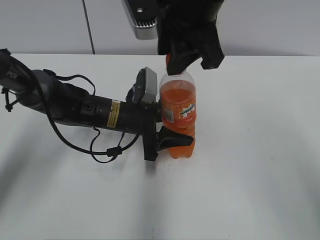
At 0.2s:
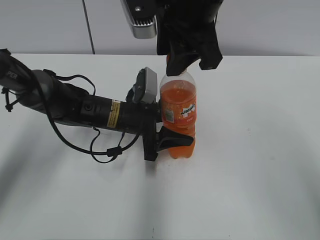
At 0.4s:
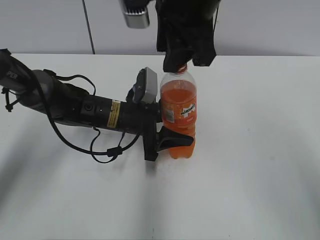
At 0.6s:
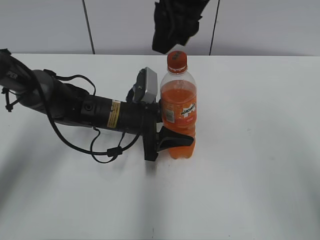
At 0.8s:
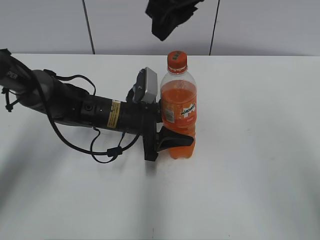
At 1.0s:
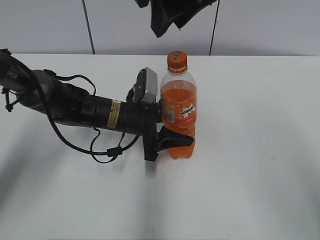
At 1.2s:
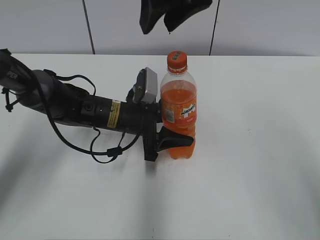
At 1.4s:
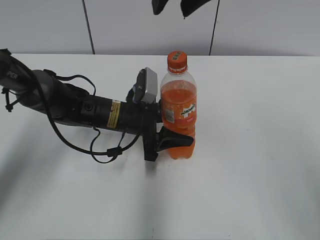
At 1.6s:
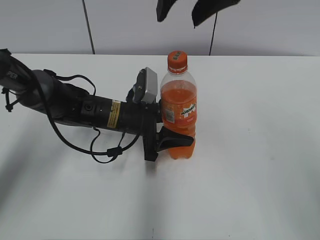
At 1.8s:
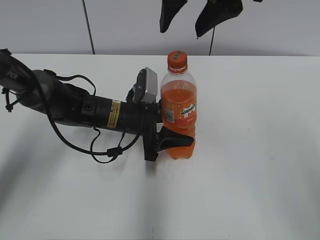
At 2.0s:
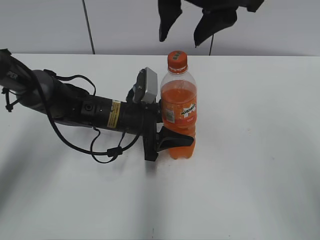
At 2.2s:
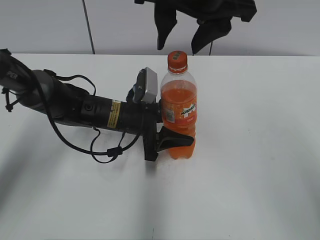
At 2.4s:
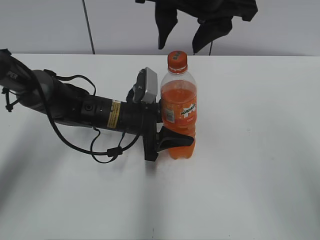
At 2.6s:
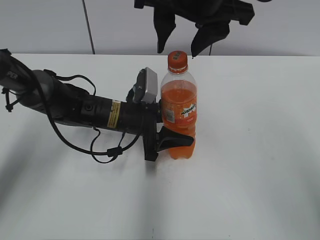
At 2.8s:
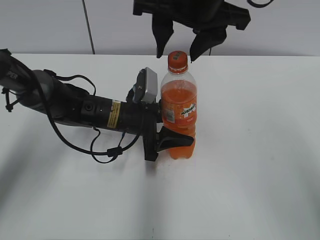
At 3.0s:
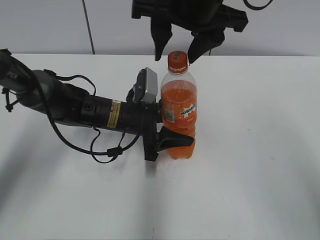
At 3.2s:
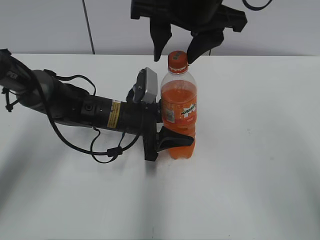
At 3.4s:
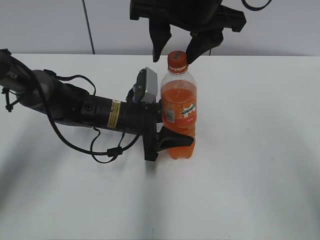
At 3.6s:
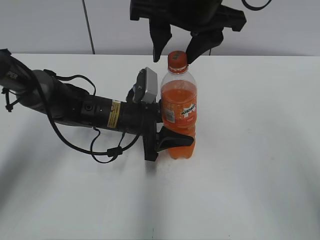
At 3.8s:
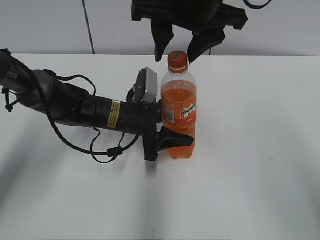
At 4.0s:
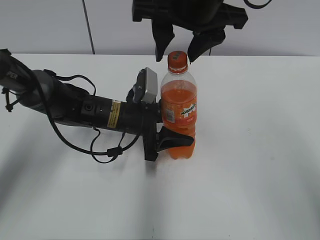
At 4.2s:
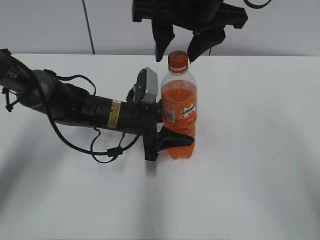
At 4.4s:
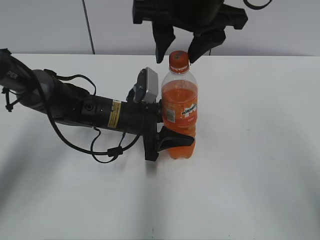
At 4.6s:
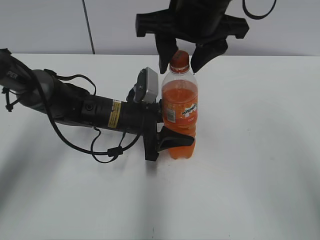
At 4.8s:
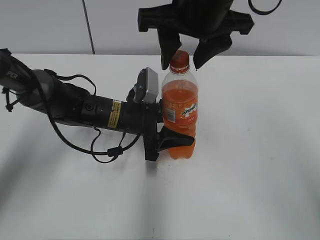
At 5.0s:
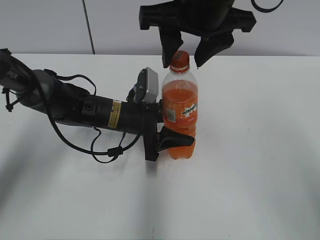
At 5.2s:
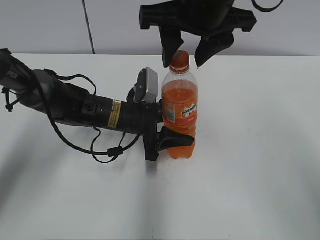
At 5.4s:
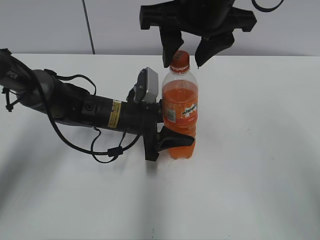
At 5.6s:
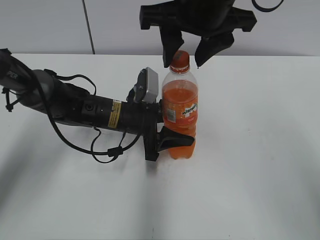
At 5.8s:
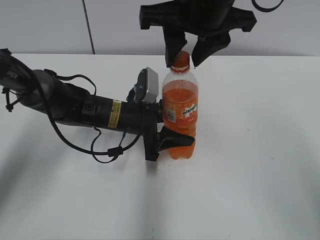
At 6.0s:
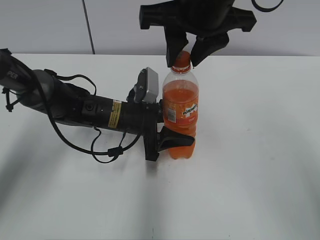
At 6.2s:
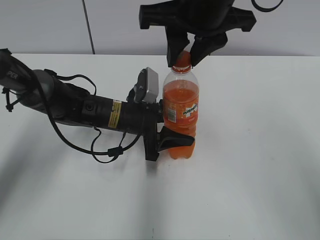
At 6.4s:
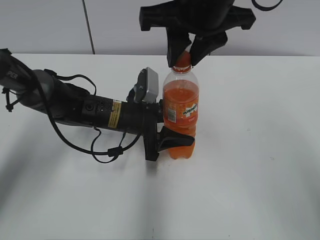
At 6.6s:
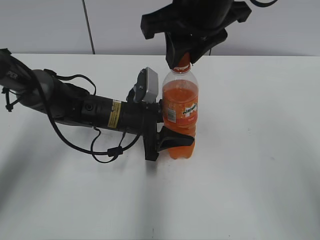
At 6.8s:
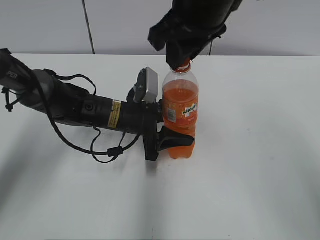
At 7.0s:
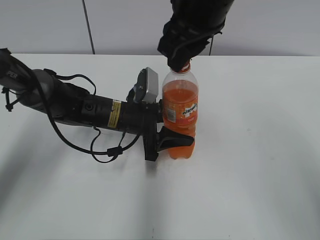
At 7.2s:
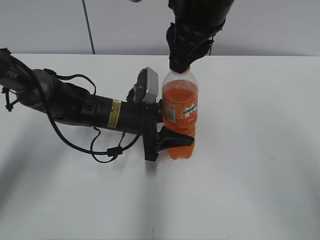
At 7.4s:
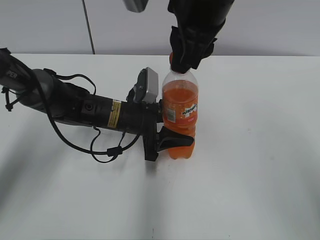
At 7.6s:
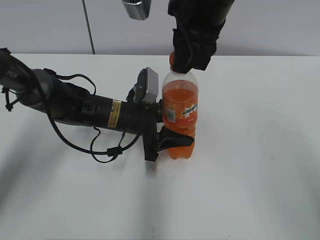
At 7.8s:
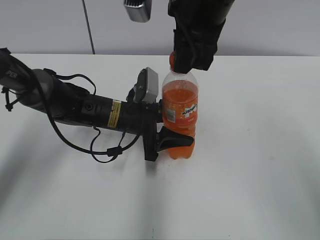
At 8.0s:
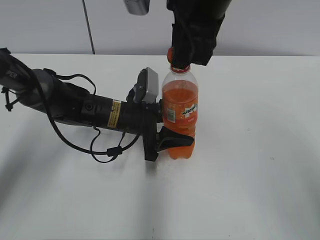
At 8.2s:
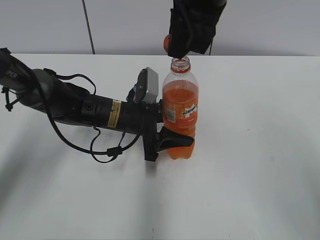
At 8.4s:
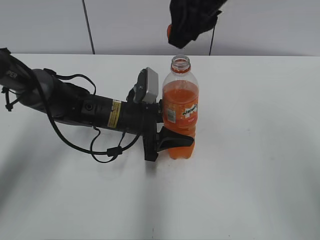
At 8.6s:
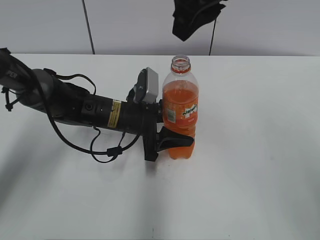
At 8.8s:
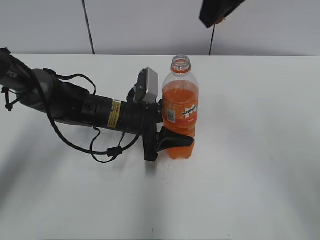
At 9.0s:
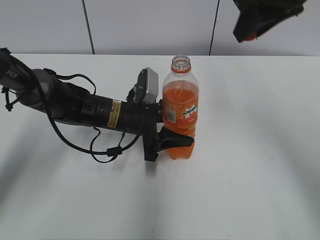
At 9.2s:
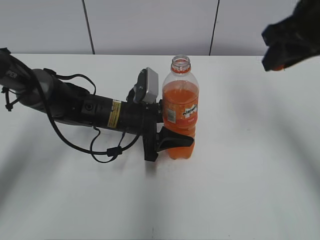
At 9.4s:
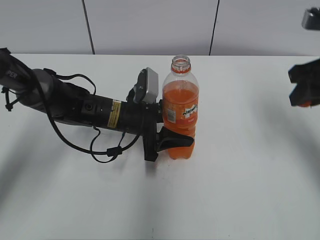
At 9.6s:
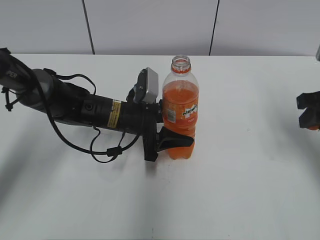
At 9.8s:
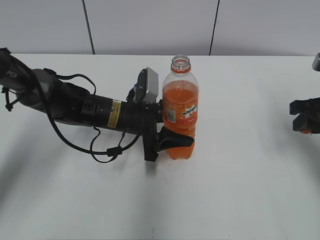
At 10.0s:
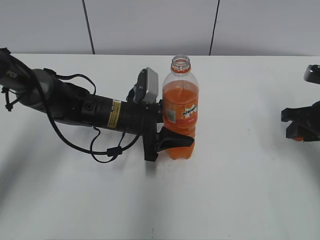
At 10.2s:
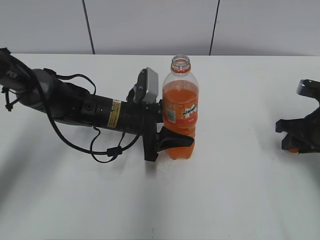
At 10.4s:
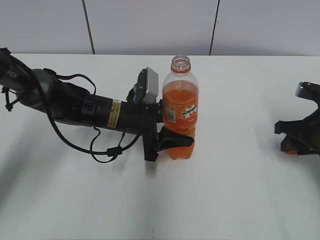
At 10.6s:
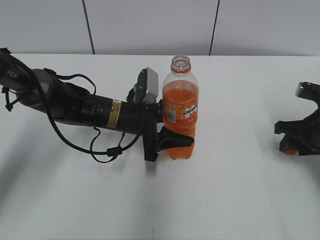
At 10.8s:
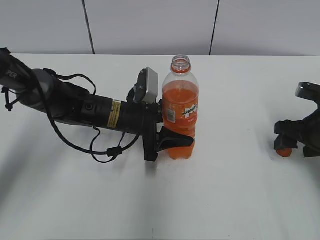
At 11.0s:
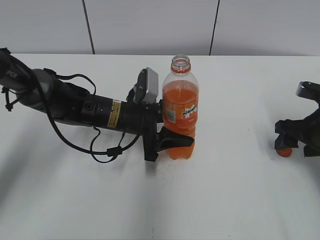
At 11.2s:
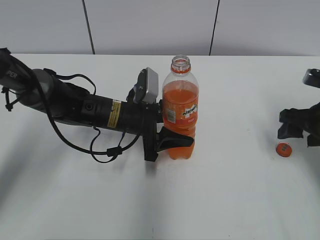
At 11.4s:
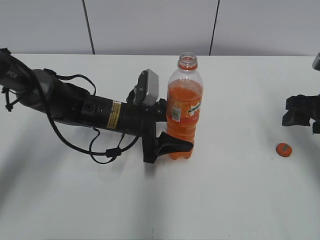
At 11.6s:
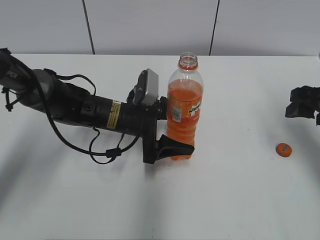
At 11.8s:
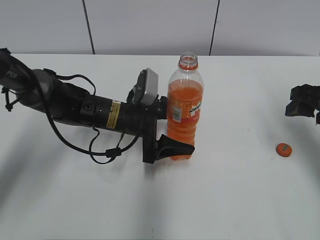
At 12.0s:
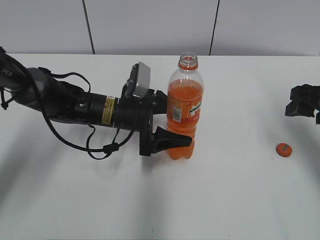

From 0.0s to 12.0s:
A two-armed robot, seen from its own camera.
Step, from 8.2s to 10.8s: Place the bottle cap on the right.
From 0.0s to 1.6s: The right gripper is displaced upward by approximately 5 cm, and opens up.
From 1.6s to 3.0s: The right gripper is displaced downward by some 5 cm.
From 3.0s to 4.4s: The grippers stay close to where they were, moving slightly.
From 4.4s to 6.0s: The right gripper closes up.
From 7.6s to 9.0s: The right gripper heads to the right, covering approximately 10 cm.
From 9.0s to 10.4s: The right gripper is displaced downward and to the right by approximately 25 cm.
From 10.4s to 12.0s: The left gripper opens. The right gripper shifts some 10 cm upward, and opens.

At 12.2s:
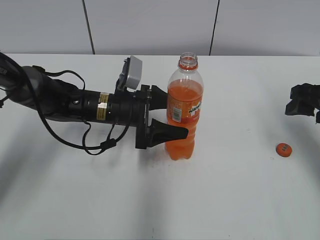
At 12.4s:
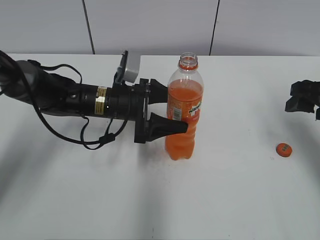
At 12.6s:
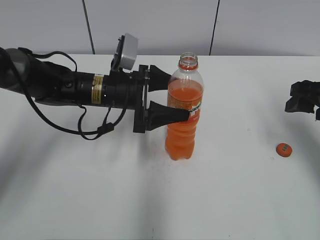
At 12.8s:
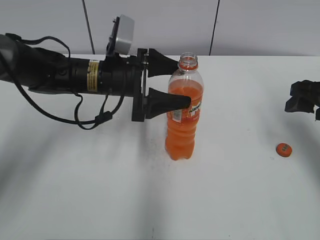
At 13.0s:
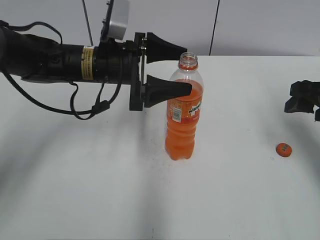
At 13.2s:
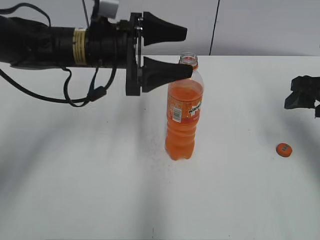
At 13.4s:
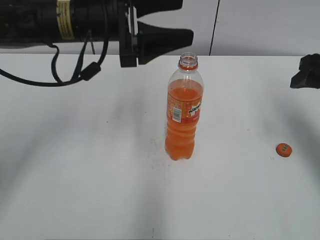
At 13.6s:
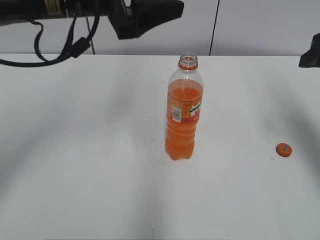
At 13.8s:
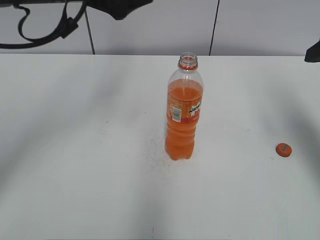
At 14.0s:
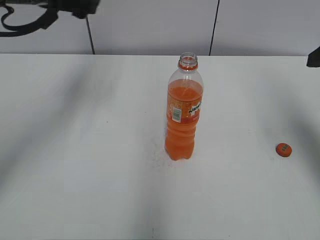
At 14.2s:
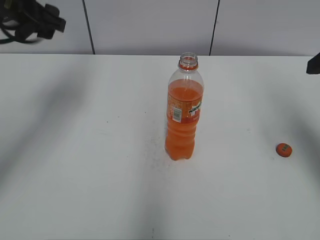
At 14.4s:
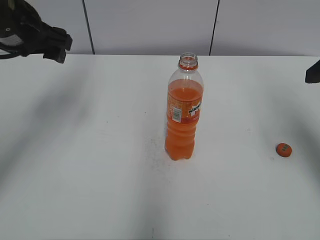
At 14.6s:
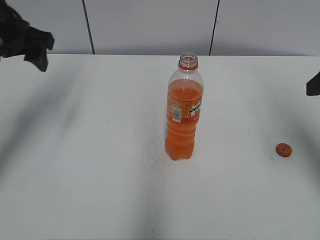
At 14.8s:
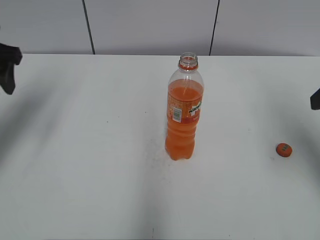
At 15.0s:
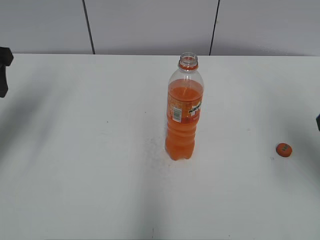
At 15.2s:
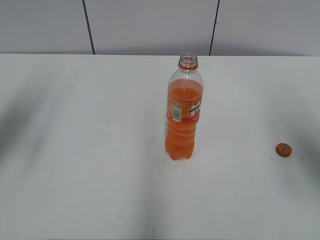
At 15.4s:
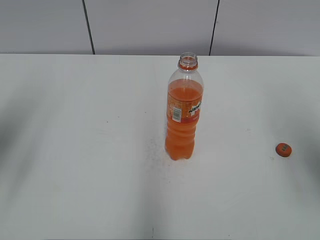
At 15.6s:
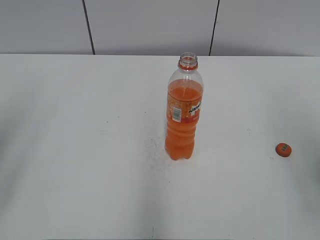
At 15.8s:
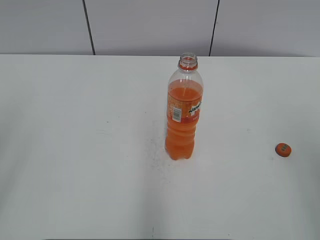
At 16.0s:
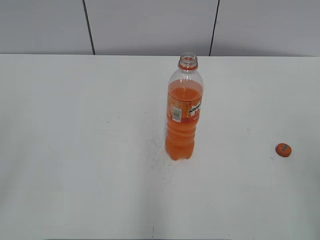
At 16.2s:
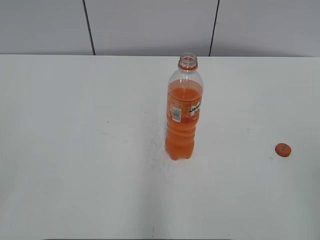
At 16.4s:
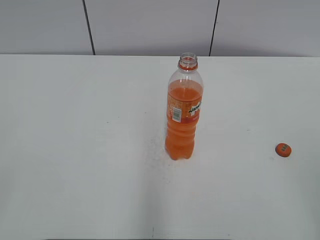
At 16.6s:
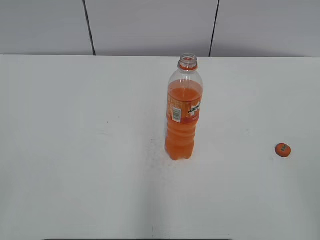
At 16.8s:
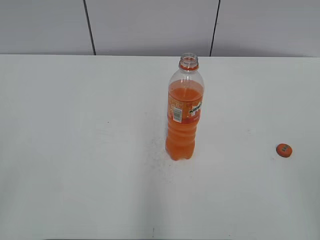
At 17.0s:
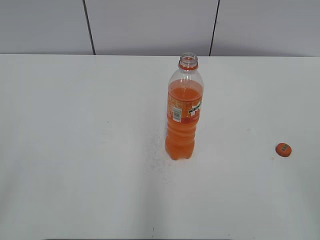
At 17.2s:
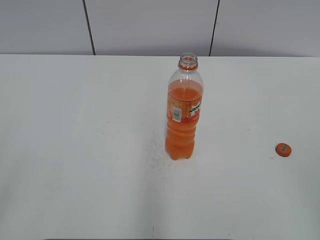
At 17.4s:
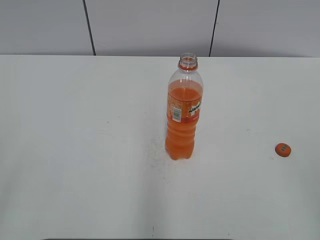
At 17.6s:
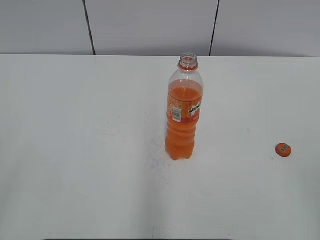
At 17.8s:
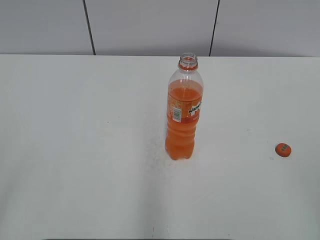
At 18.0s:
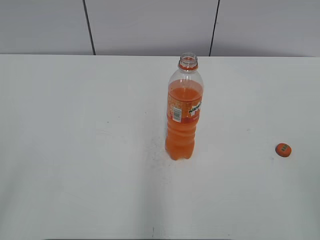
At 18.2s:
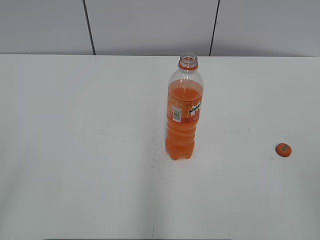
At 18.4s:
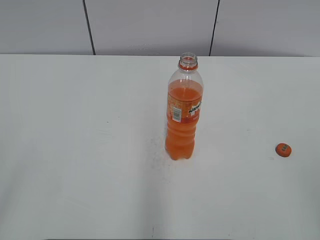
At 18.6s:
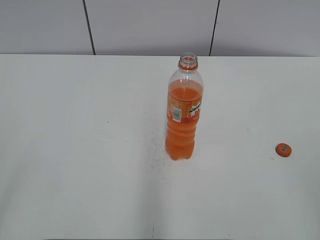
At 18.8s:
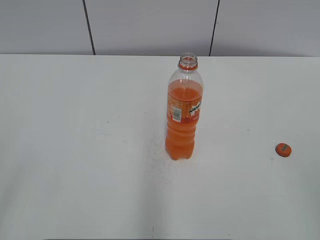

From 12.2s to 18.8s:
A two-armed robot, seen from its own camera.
From 12.2s to 13.8s: The left gripper heads upward, covering some 20 cm. Meanwhile the right gripper heads upward, covering approximately 10 cm.
From 13.8s to 15.4s: The right gripper travels backward by roughly 10 cm. Meanwhile the left gripper shifts roughly 20 cm to the left and backward.
From 15.4s to 17.2s: The grippers both shift backward by some 20 cm.
From 17.2s to 18.8s: Both grippers stay put.

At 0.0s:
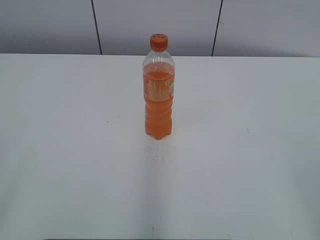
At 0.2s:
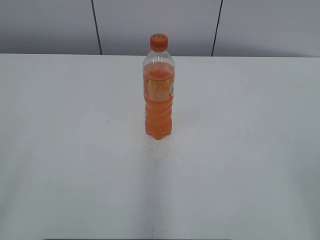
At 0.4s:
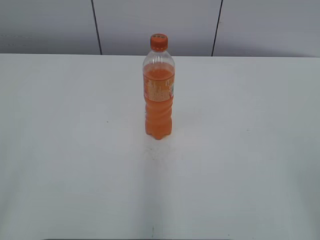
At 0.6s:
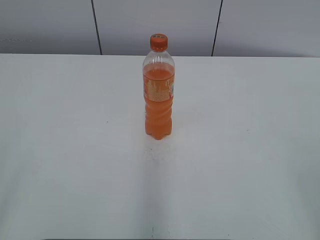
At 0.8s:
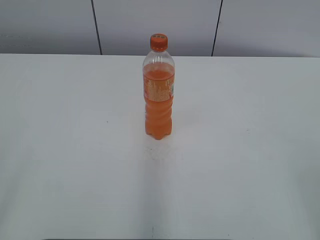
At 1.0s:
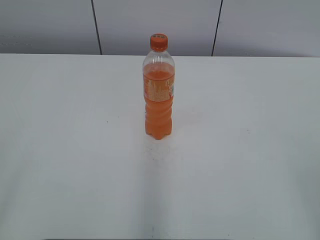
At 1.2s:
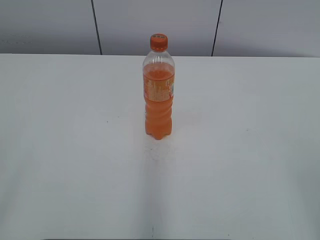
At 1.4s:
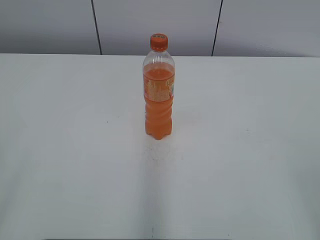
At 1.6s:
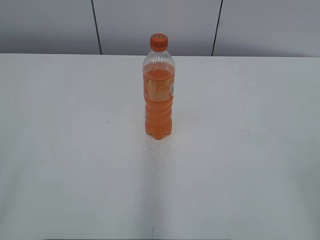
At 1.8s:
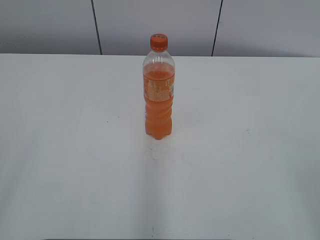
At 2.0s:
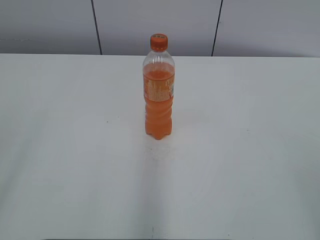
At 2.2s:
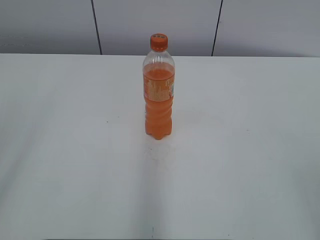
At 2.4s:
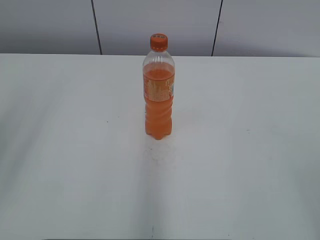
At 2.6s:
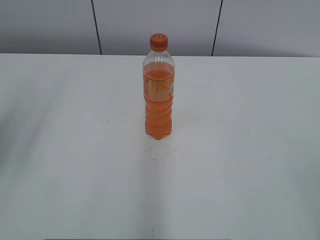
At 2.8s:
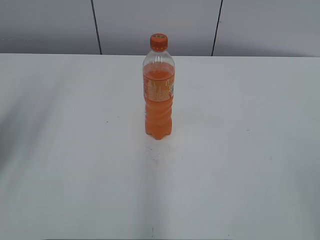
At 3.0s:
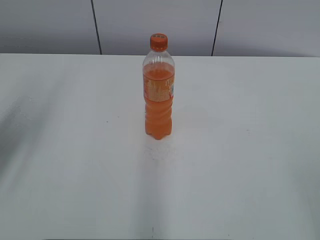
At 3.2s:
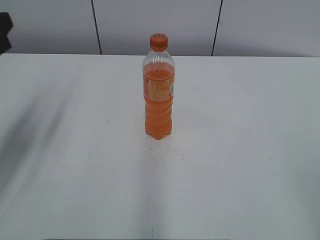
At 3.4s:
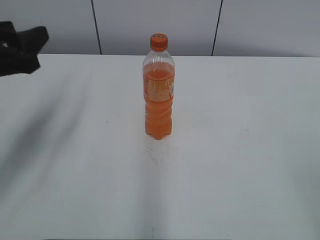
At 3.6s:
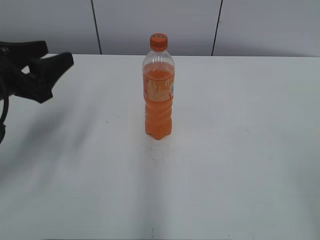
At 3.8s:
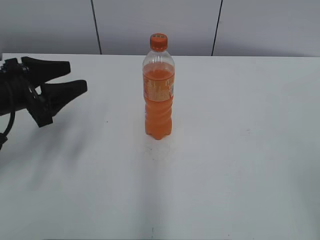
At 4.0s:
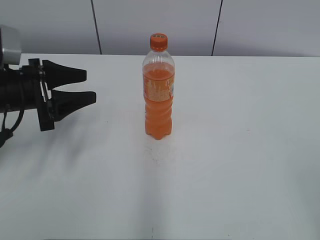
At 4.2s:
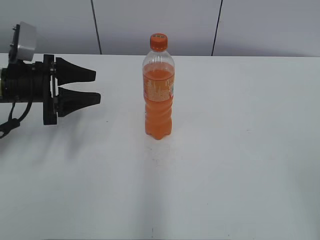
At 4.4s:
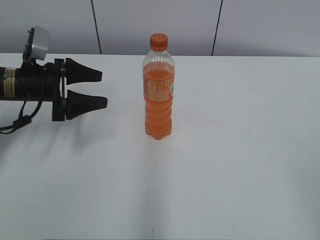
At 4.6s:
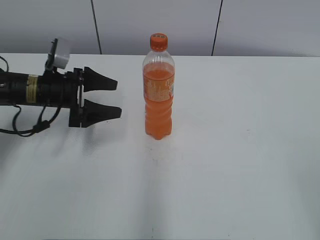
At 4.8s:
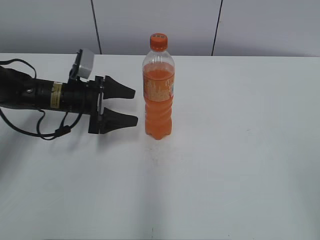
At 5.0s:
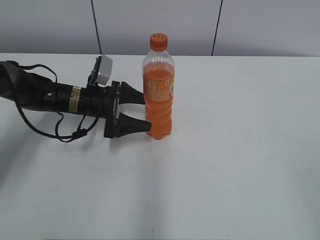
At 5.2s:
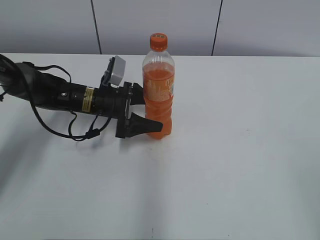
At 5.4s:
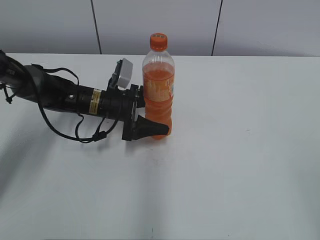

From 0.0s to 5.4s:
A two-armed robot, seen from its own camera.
From 1.4s to 2.8s: The left gripper is displaced forward by roughly 20 cm.
From 2.8s to 4.0s: The left gripper travels downward and forward by approximately 20 cm.
From 4.0s to 5.4s: The left gripper heads to the right, forward and downward, covering roughly 20 cm, and opens up.
